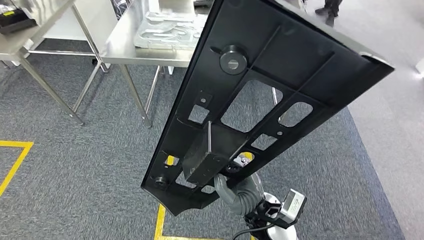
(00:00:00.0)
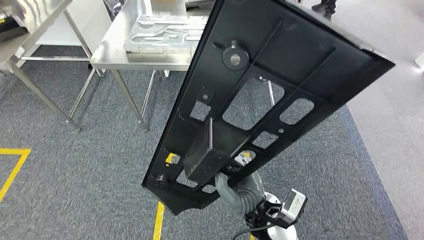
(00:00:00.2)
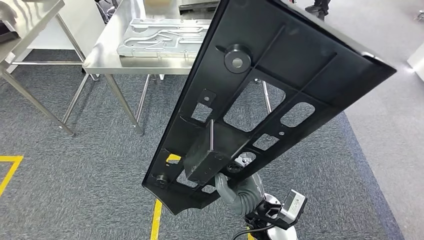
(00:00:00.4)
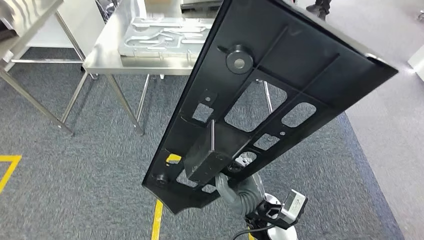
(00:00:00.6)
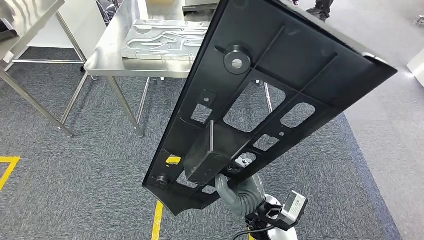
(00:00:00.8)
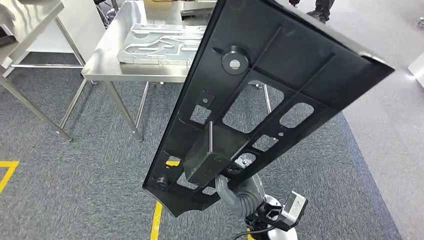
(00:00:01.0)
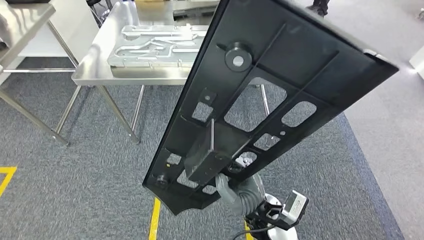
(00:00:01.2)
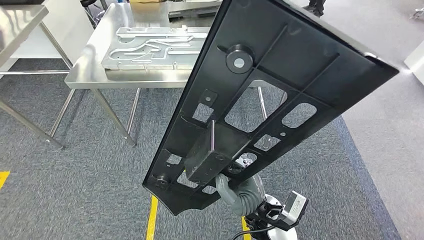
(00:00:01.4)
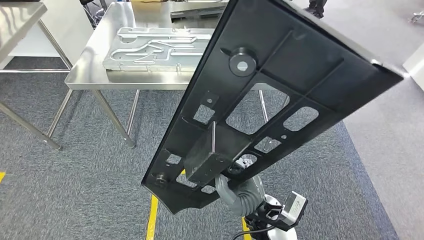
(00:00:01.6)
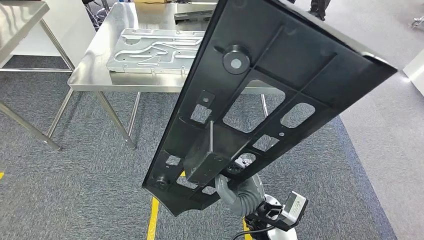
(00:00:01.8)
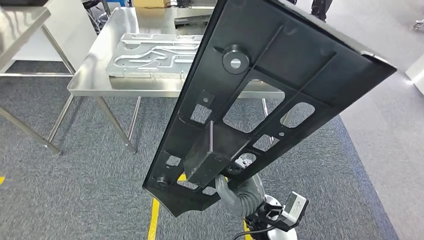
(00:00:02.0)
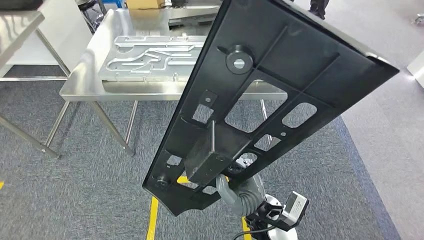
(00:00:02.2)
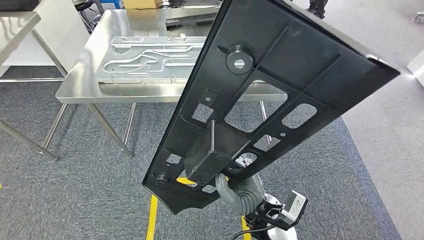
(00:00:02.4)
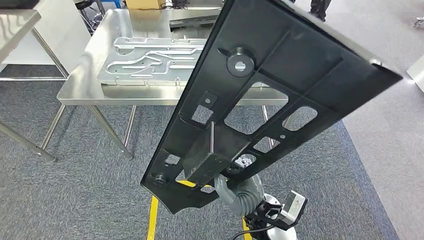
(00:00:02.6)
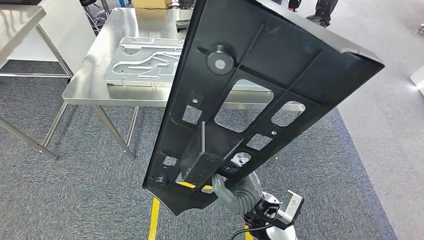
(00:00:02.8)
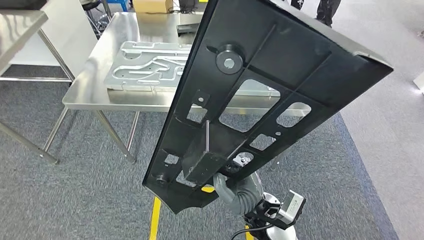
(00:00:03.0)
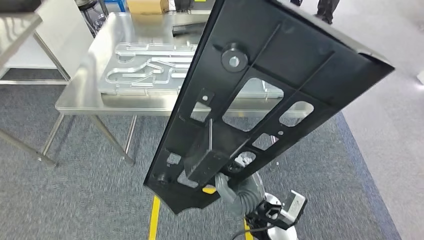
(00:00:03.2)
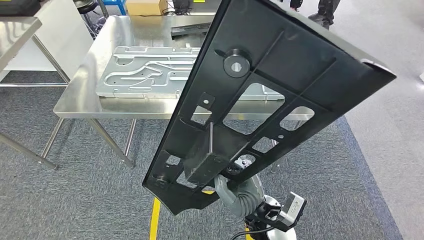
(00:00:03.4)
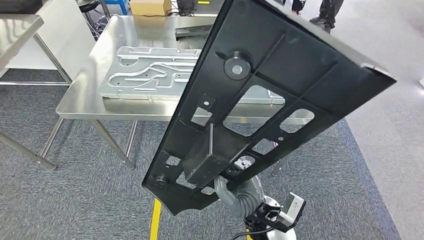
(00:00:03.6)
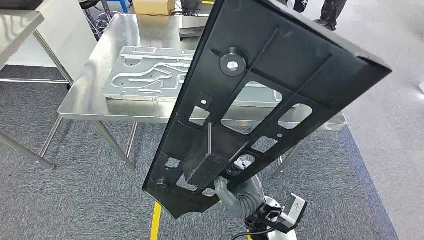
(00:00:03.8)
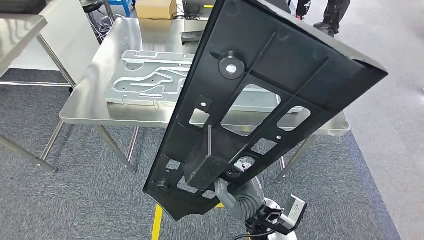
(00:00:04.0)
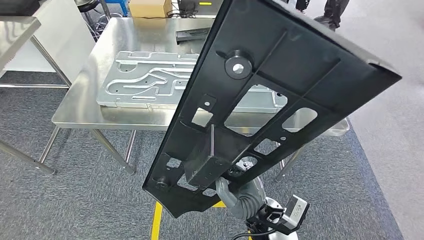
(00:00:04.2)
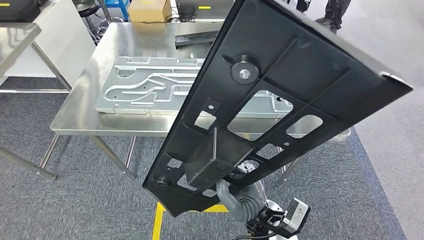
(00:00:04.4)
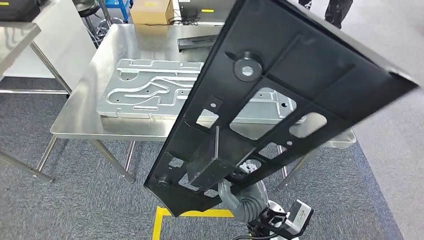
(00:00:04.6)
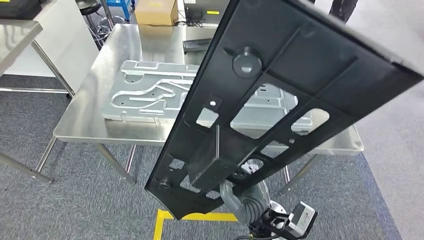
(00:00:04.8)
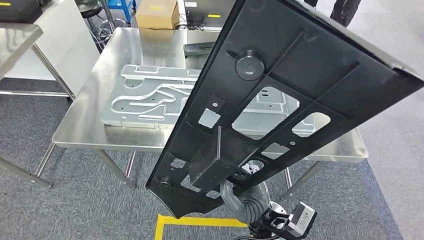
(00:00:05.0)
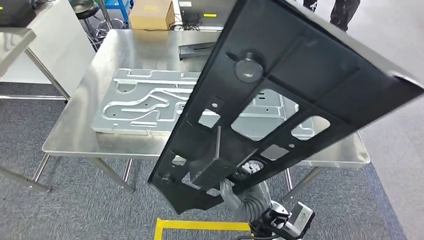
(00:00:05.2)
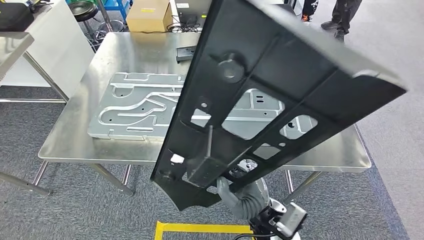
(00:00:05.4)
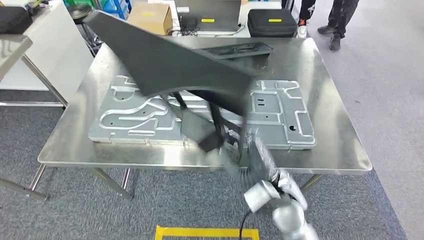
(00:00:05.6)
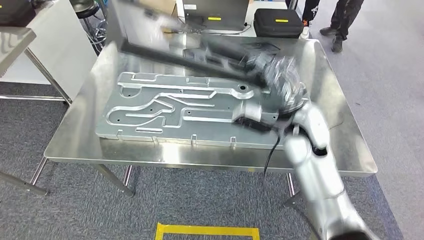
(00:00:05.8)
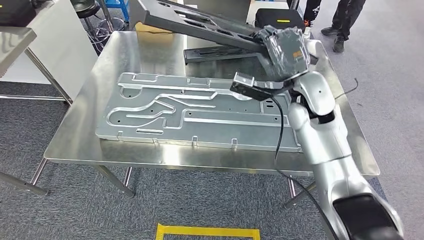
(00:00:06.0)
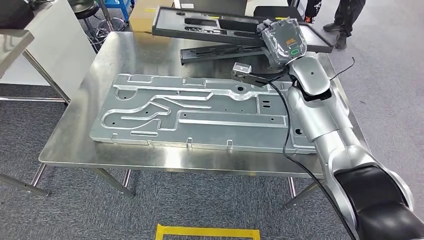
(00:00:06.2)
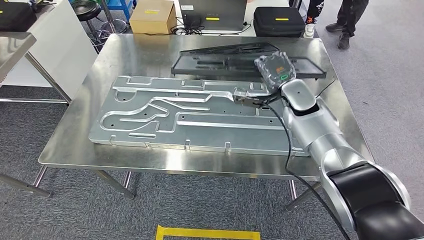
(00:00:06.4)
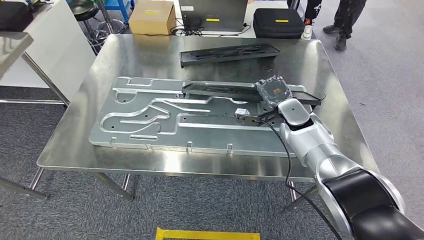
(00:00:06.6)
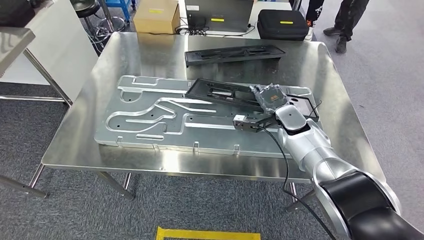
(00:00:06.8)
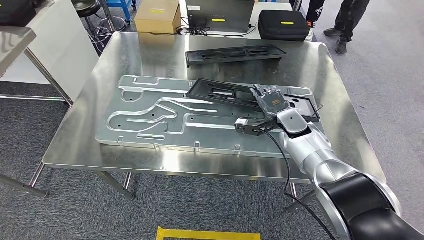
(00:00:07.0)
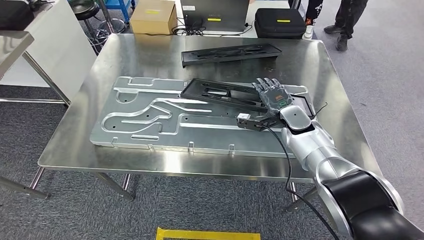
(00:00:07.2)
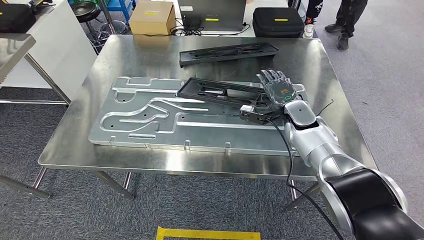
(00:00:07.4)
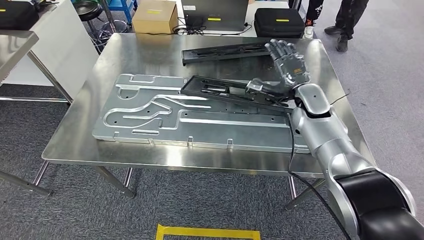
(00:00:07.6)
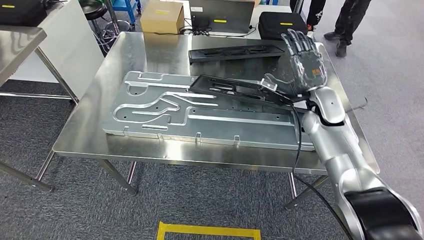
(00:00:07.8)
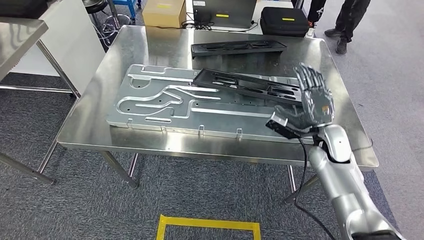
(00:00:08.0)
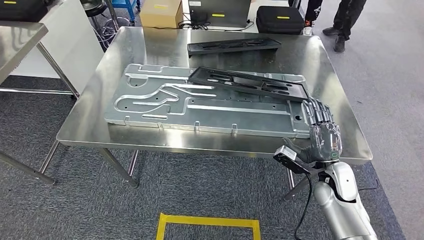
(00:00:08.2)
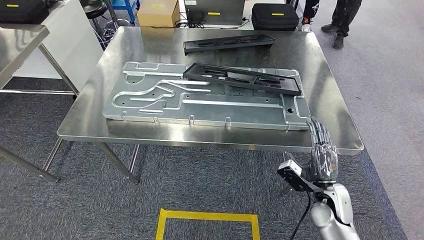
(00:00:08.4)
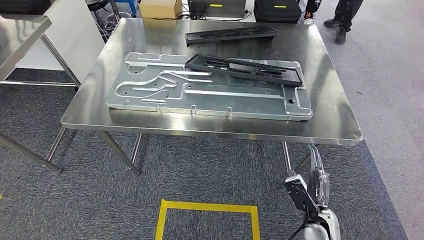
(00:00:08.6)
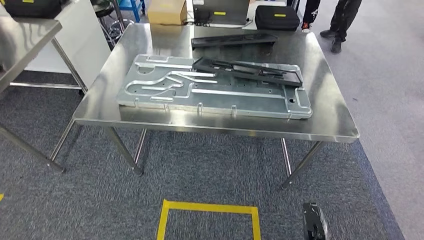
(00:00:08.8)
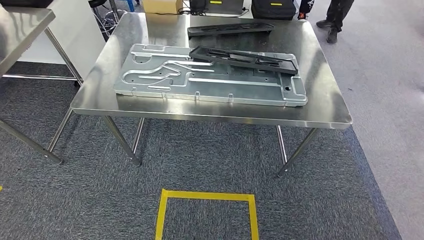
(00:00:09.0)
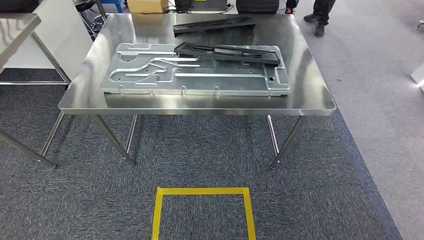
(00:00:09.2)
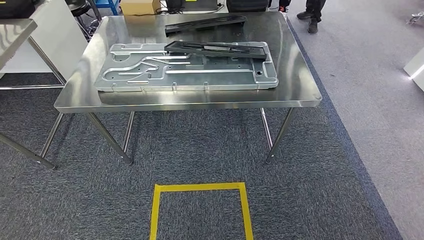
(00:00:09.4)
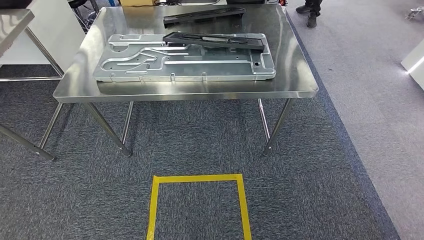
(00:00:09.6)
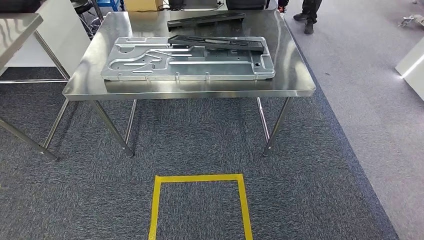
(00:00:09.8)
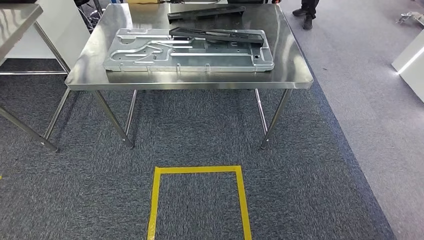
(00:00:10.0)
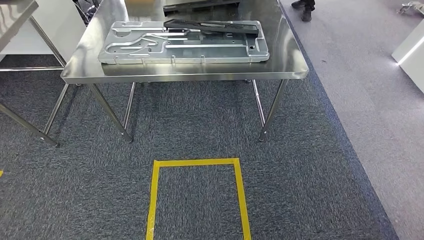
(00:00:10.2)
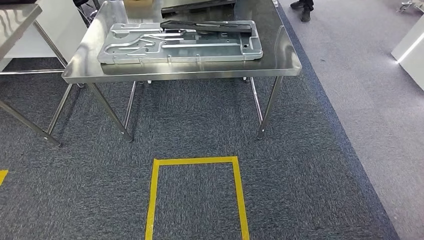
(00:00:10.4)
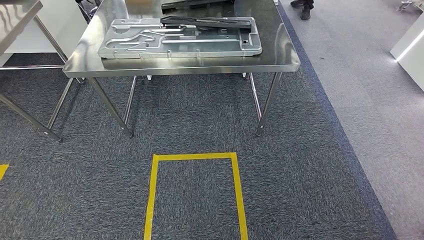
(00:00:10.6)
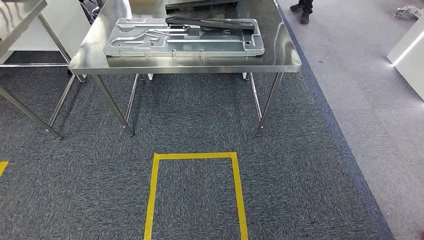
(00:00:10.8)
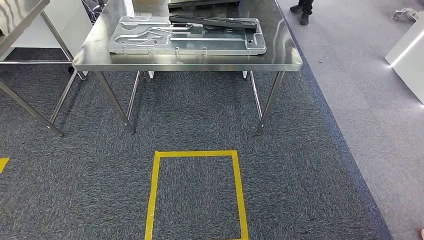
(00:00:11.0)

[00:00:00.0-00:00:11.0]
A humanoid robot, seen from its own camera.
Step, 00:00:00.0 to 00:00:05.6: Move the large material to the workbench.
Step, 00:00:05.8 to 00:00:09.0: Insert the large material into the corresponding slot on the workbench.
Step, 00:00:09.4 to 00:00:11.0: Move to the initial position of the shelf.
